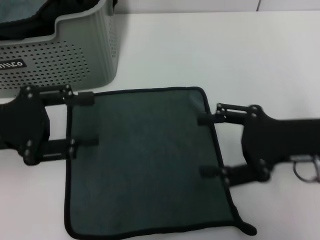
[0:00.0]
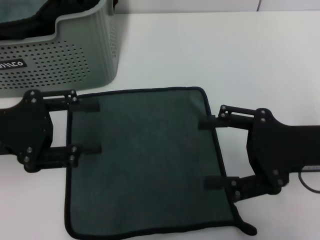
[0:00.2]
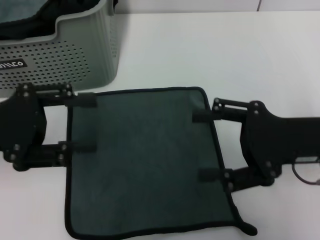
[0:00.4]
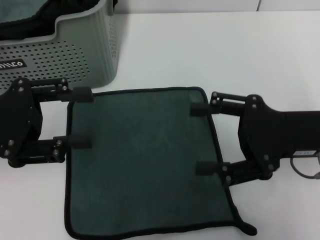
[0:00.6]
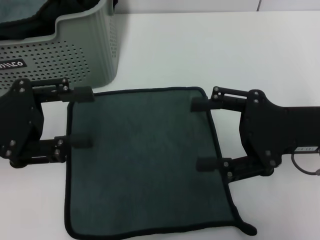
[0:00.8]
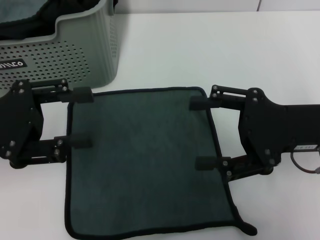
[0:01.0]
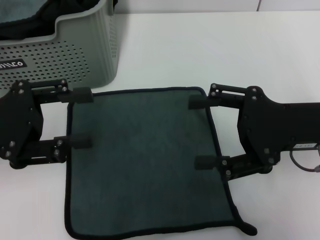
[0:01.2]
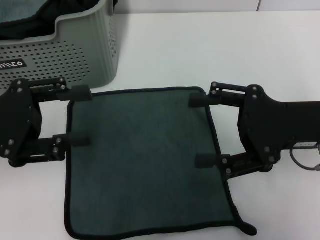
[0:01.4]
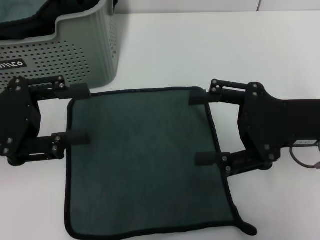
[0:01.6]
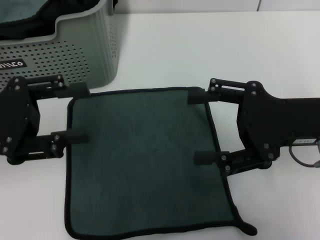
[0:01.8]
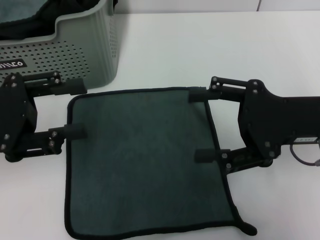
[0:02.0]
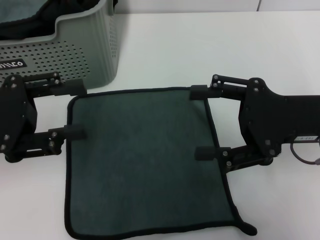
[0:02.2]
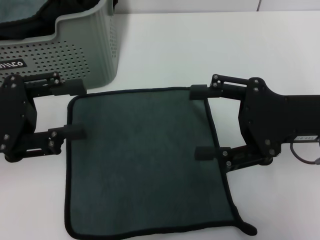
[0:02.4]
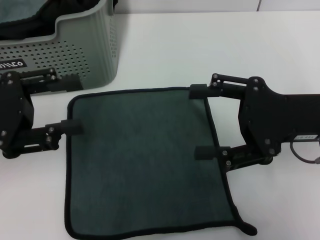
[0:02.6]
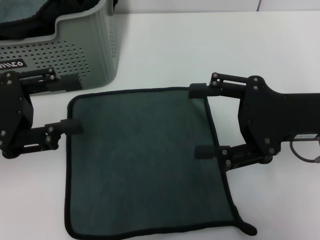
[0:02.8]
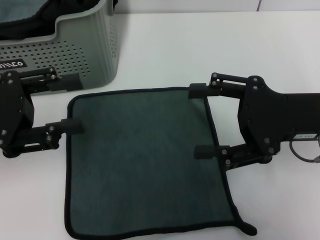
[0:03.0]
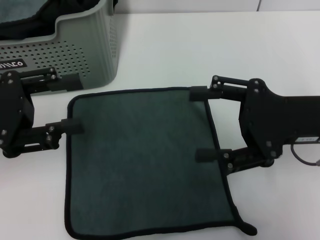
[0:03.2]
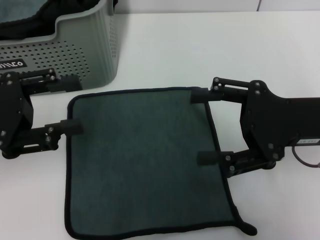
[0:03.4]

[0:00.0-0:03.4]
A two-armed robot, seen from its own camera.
Task of the whole recording: pick up the towel from the storage box and lay it flat on the table.
0:00.0 to 0:01.6: The grippers move only a little.
0:01.6 to 0:03.4: Both grippers stay about where they are.
